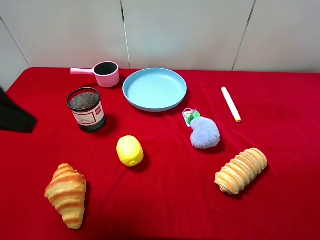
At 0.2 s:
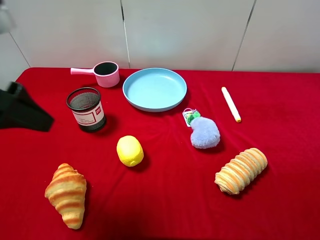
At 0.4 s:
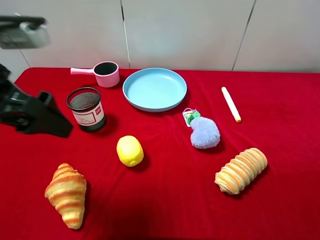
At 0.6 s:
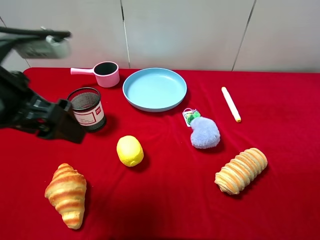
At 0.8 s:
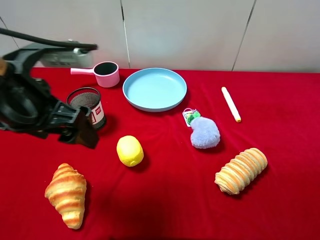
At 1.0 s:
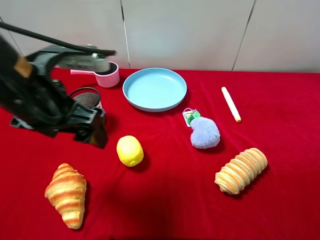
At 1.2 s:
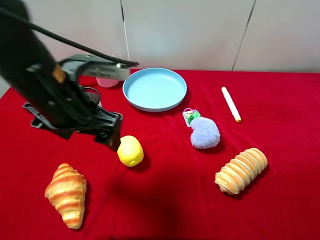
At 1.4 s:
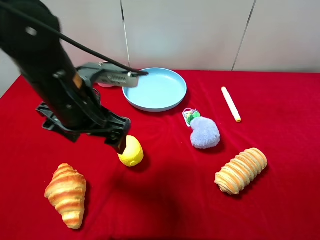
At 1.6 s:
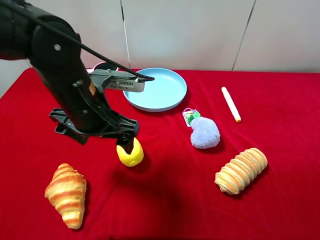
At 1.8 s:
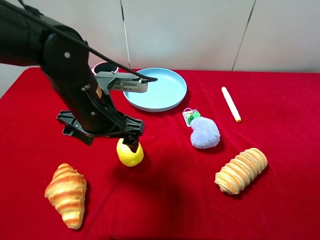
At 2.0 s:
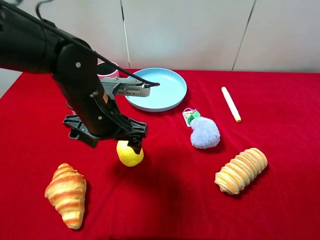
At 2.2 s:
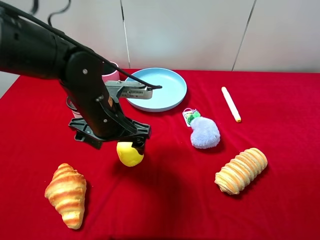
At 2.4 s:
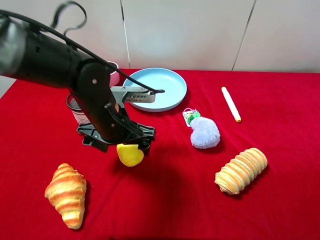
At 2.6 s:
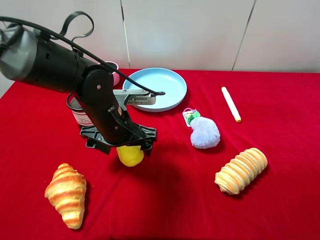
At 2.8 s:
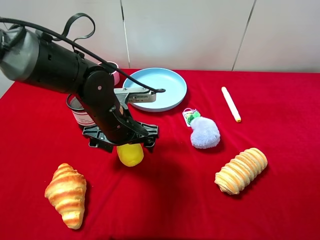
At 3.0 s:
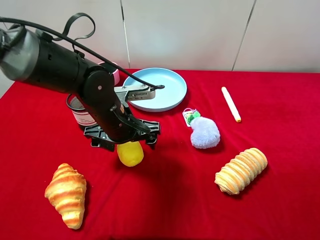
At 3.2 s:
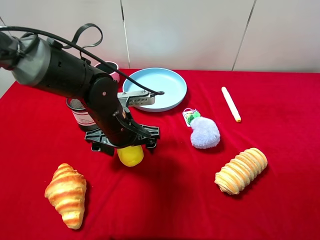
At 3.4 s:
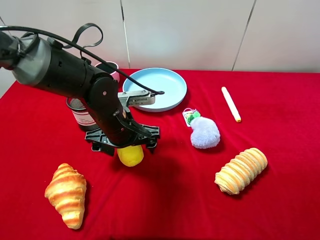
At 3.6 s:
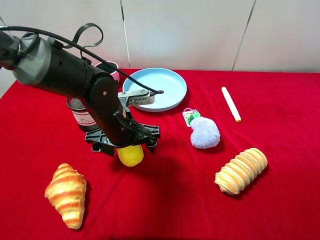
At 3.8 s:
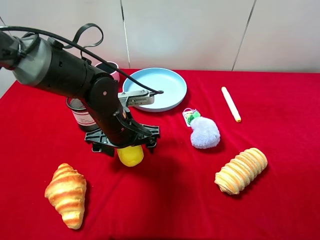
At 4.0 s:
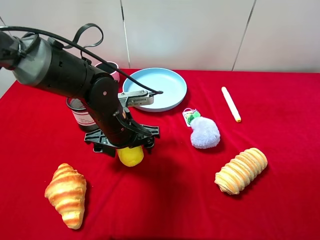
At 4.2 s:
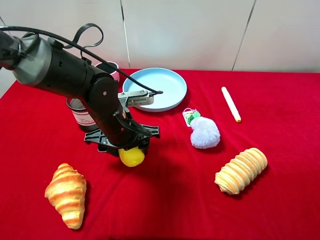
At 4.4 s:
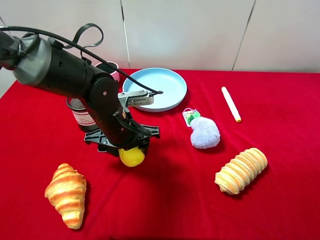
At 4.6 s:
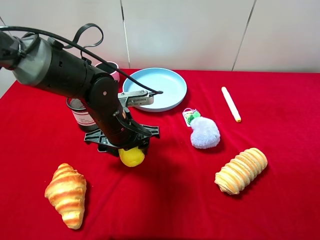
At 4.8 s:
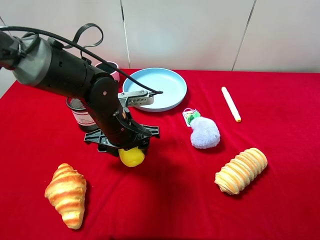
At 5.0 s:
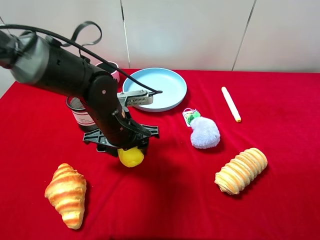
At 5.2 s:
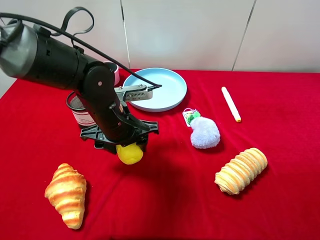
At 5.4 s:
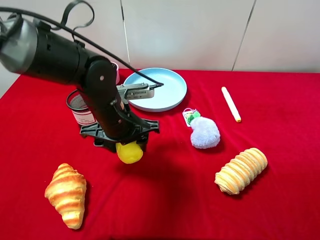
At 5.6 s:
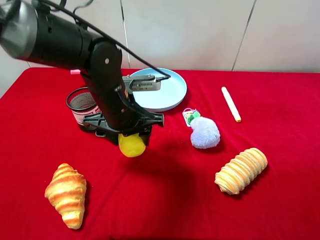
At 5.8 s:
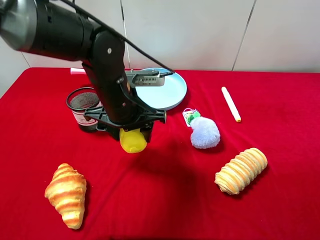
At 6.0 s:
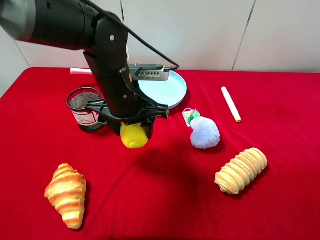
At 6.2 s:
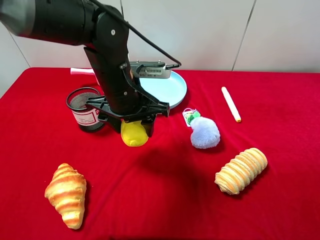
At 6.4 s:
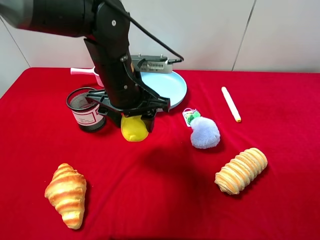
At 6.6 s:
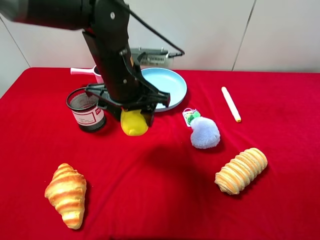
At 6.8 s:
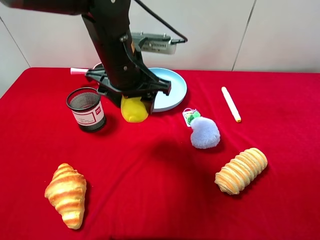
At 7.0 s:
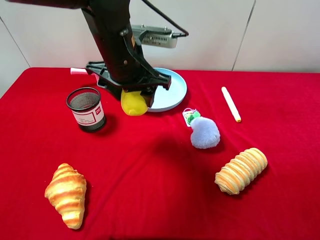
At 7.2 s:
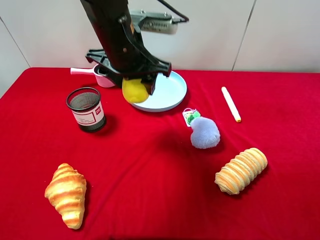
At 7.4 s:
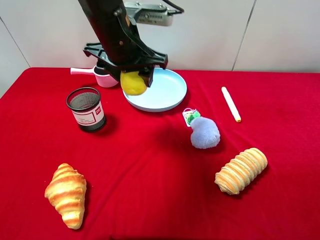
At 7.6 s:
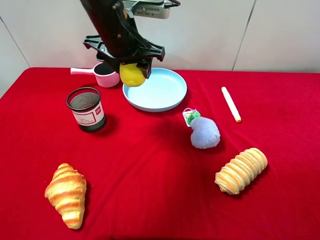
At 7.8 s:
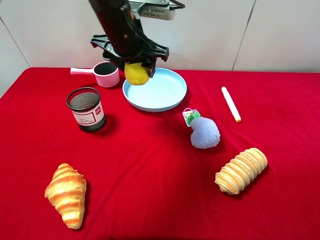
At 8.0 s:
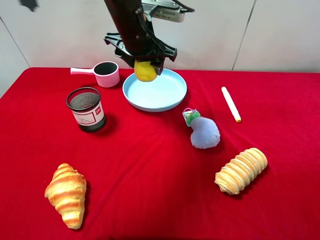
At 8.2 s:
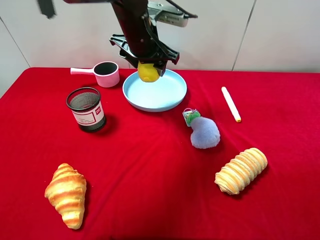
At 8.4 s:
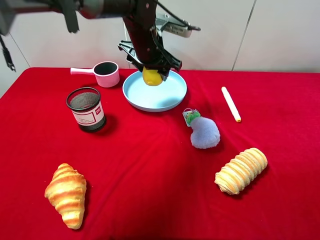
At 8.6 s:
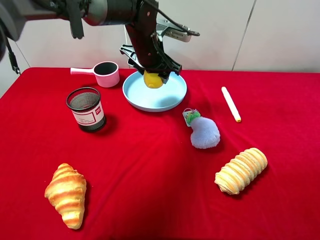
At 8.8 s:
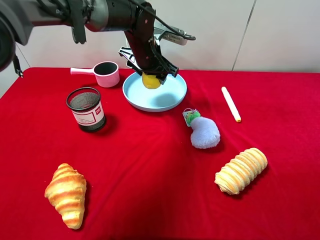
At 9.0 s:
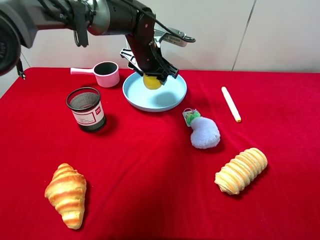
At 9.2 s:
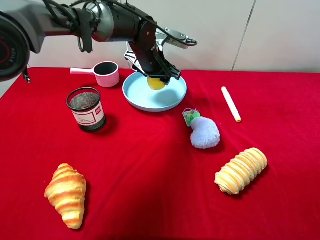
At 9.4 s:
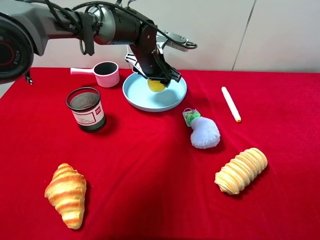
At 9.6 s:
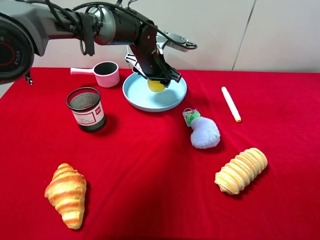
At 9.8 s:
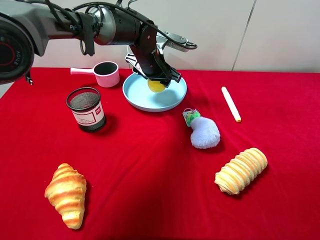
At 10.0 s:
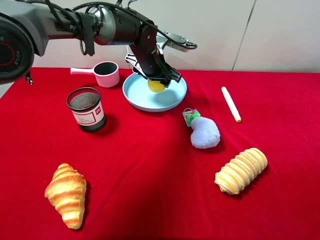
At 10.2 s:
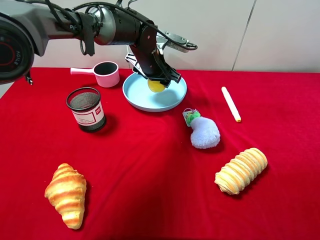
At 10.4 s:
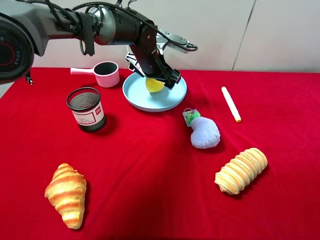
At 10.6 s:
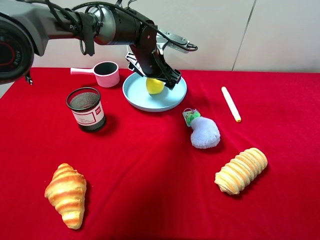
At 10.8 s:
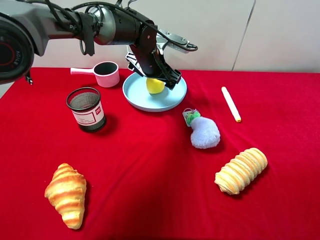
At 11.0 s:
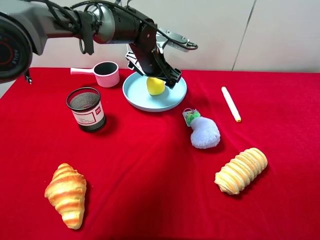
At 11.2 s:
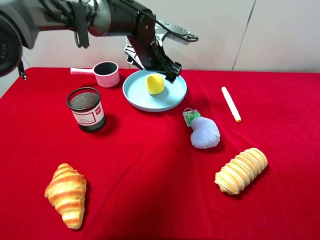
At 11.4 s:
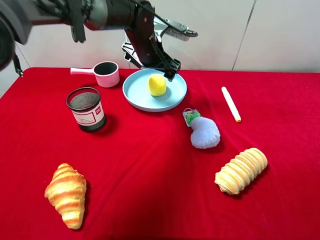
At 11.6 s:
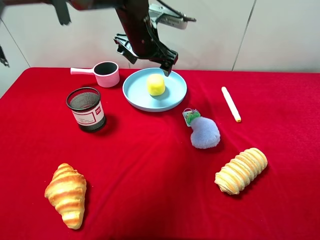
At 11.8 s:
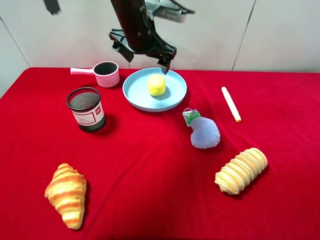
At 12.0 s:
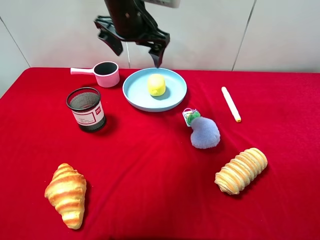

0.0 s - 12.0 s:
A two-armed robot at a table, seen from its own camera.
Task of the whole recording: pick up an item with a gripper and place it in a random container on the desktop.
0.0 s - 1.6 s: The left gripper goes some 20 cm to the right, downward and forward.
1.6 s - 3.0 s: The left gripper is displaced downward by some 5 cm.
3.0 s - 4.4 s: The left gripper closes up.
4.4 s - 6.0 s: The left gripper shifts about 5 cm upward.
6.0 s - 7.6 s: The left gripper shifts approximately 10 cm upward and forward.
7.6 s - 9.0 s: The left gripper moves downward and forward, some 15 cm.
9.0 s - 10.4 s: The left gripper opens its fingers.
10.4 s - 12.0 s: The left gripper heads upward and backward, covering some 15 cm.

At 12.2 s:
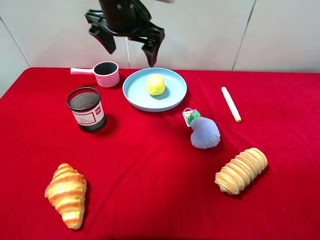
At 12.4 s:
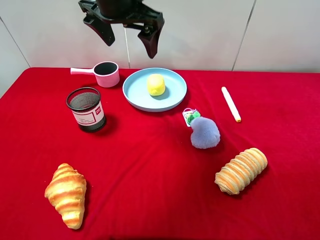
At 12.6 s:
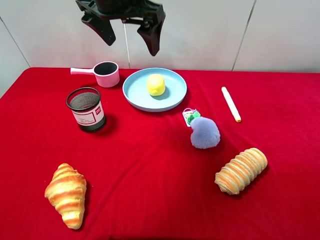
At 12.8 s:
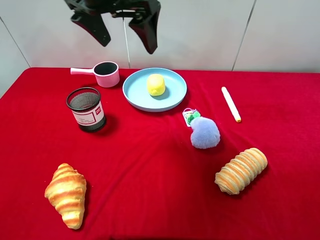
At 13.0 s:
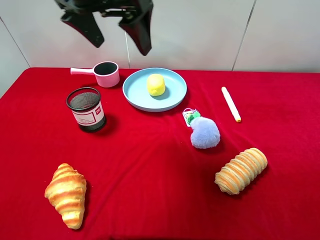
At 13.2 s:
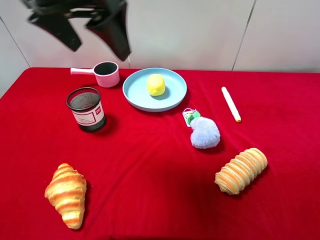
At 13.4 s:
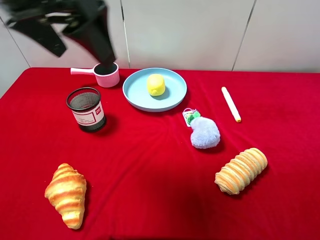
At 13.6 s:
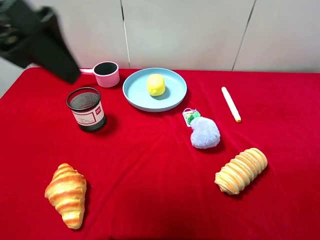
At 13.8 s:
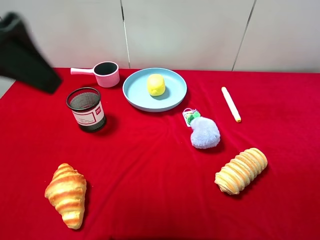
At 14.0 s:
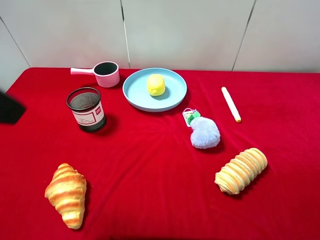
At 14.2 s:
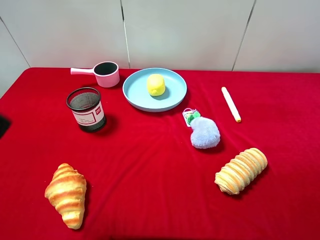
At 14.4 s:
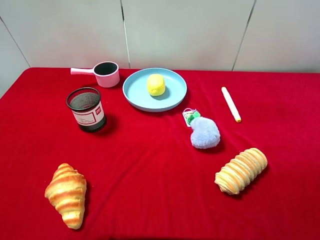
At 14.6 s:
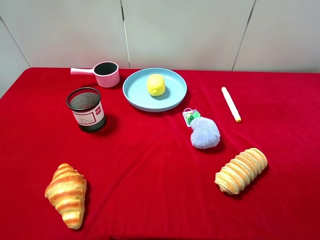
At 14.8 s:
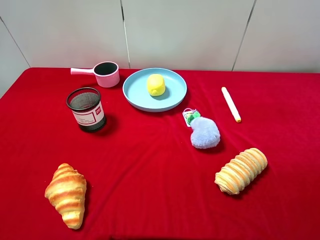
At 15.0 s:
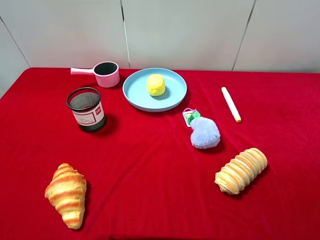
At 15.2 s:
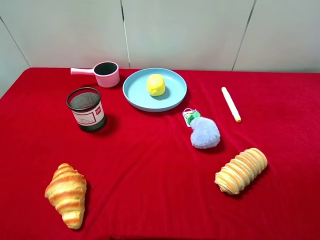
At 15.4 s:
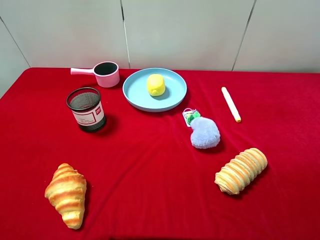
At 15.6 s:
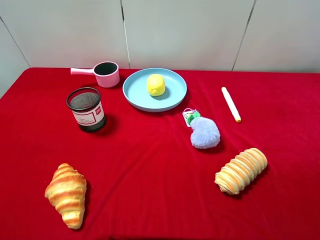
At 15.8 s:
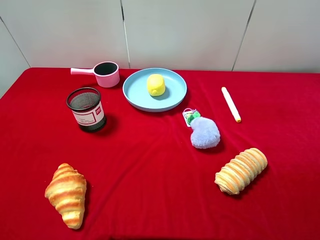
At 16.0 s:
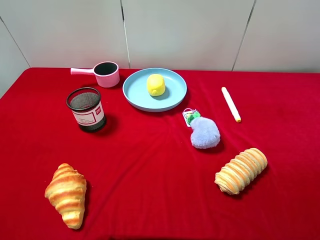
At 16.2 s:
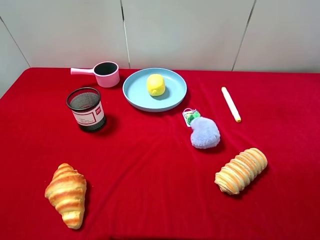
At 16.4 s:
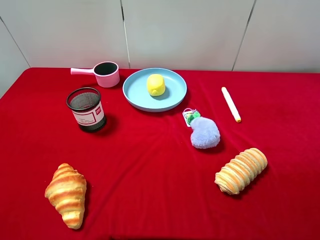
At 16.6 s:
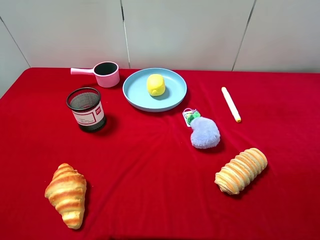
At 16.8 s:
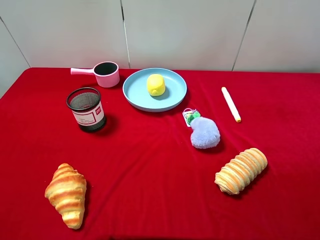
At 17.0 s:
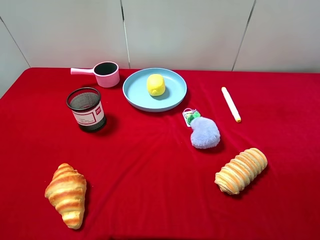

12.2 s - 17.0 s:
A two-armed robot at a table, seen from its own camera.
Task of the whole recording: pick up an item with a gripper and place it in a random container on the desktop.
12.2 s - 13.8 s: The left gripper shifts some 25 cm backward and to the left.
13.8 s - 15.4 s: The left gripper is displaced backward, downward and to the left by about 20 cm.
